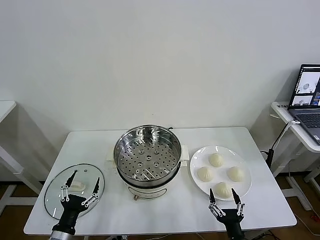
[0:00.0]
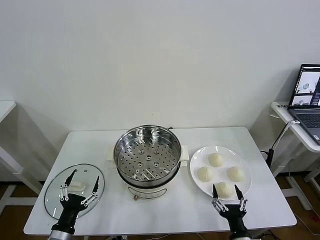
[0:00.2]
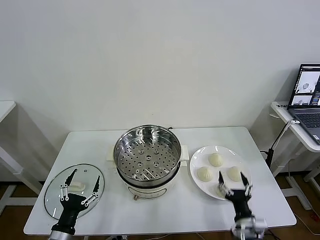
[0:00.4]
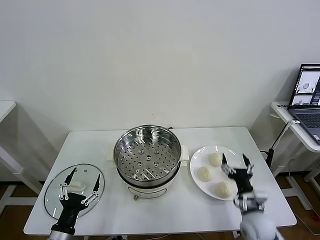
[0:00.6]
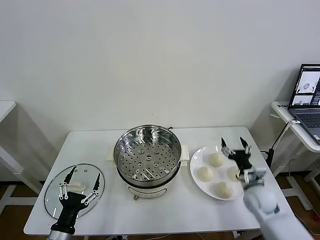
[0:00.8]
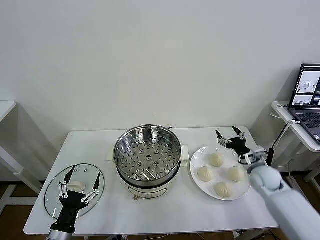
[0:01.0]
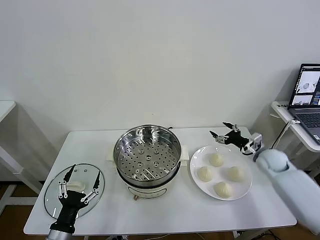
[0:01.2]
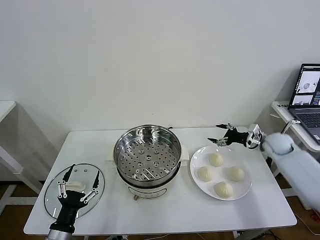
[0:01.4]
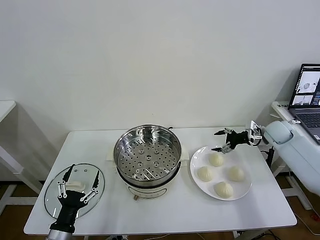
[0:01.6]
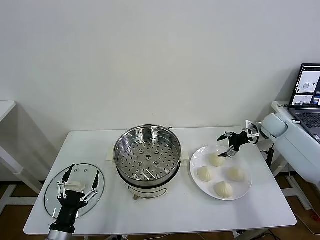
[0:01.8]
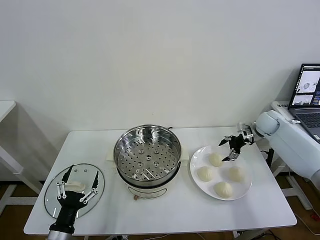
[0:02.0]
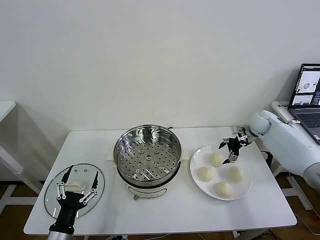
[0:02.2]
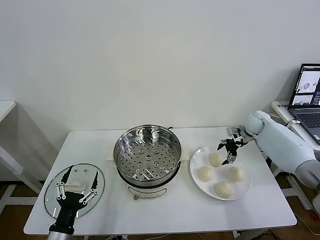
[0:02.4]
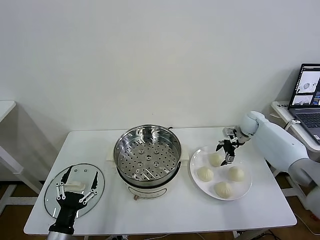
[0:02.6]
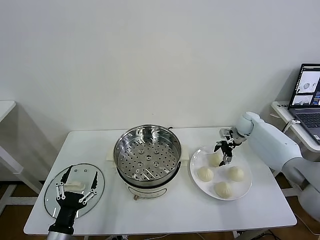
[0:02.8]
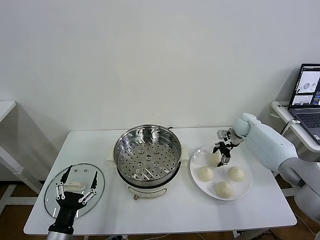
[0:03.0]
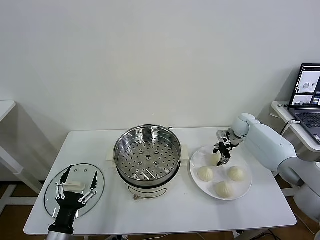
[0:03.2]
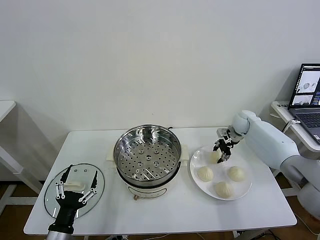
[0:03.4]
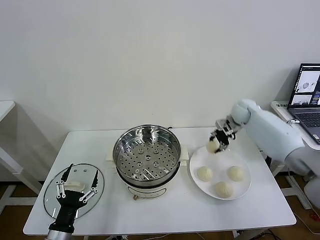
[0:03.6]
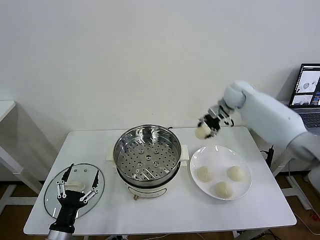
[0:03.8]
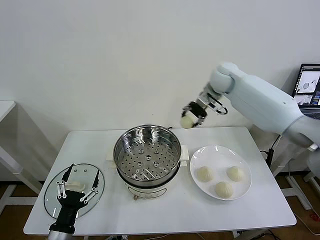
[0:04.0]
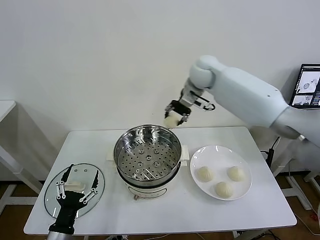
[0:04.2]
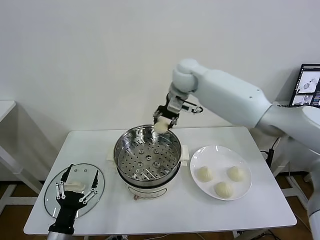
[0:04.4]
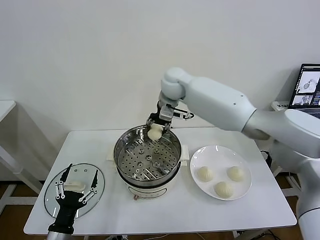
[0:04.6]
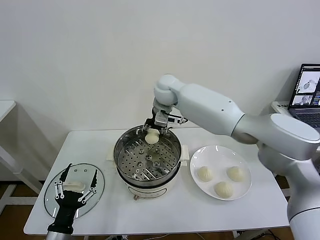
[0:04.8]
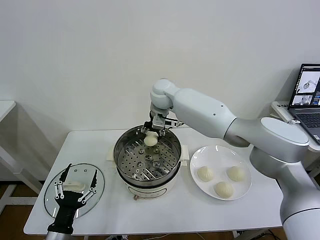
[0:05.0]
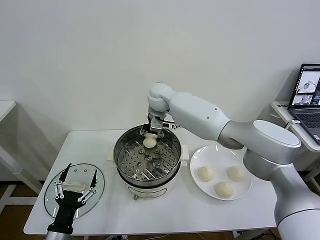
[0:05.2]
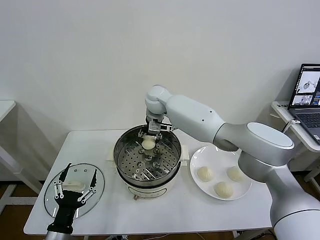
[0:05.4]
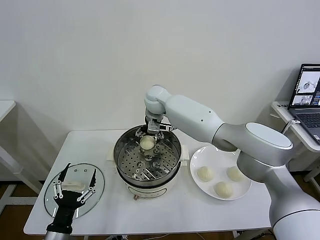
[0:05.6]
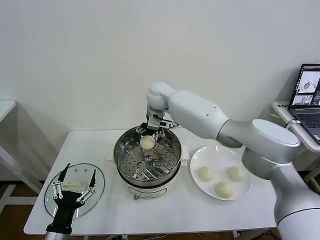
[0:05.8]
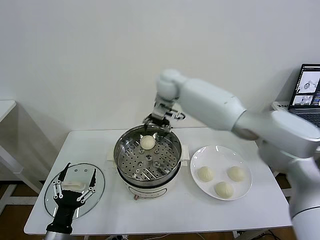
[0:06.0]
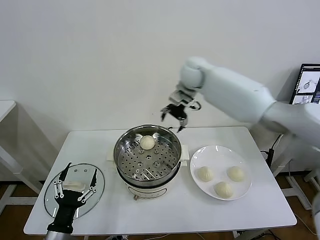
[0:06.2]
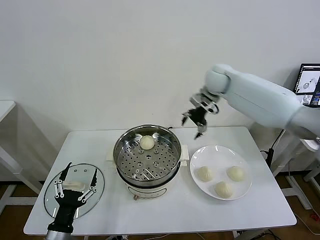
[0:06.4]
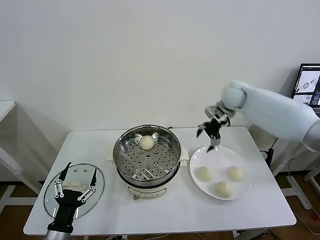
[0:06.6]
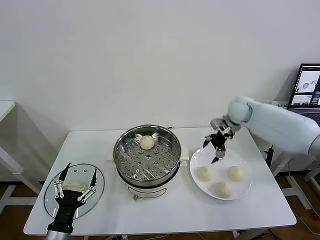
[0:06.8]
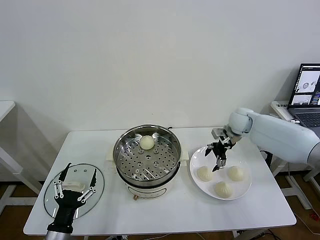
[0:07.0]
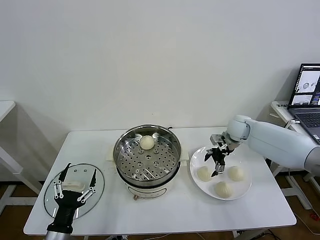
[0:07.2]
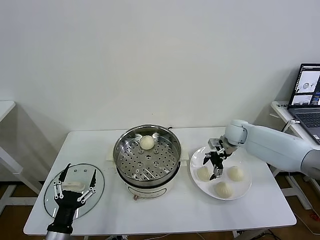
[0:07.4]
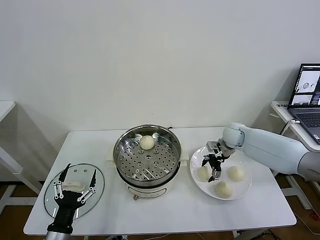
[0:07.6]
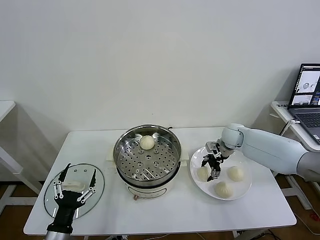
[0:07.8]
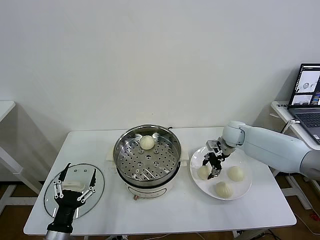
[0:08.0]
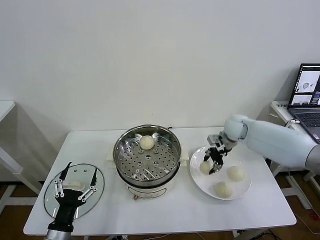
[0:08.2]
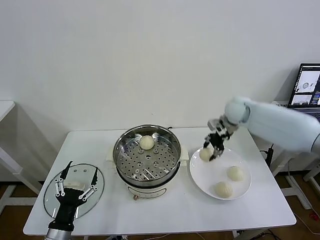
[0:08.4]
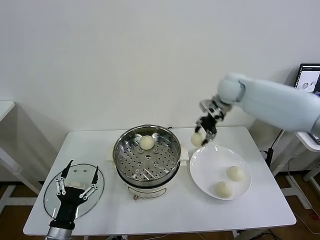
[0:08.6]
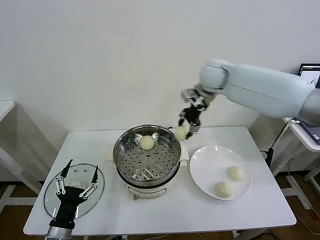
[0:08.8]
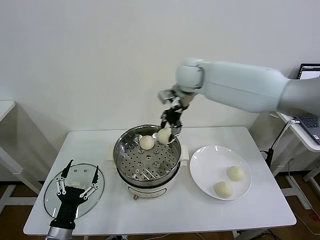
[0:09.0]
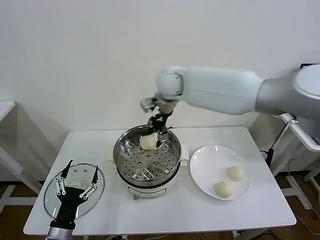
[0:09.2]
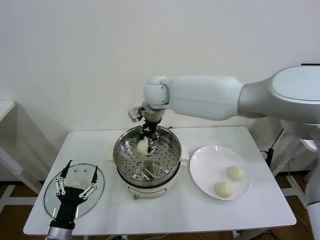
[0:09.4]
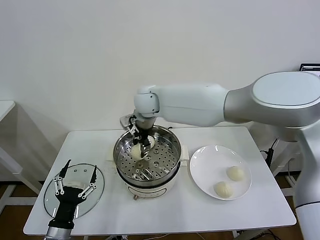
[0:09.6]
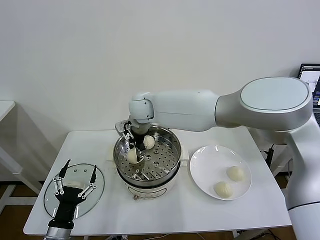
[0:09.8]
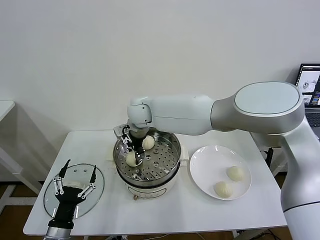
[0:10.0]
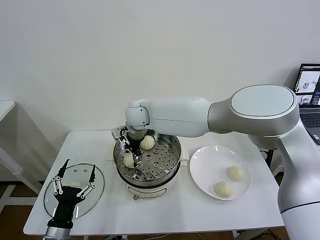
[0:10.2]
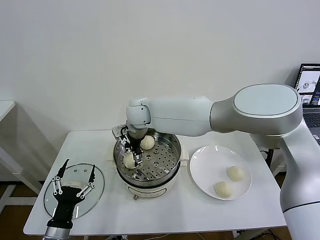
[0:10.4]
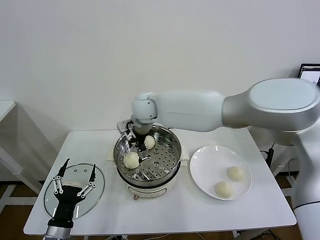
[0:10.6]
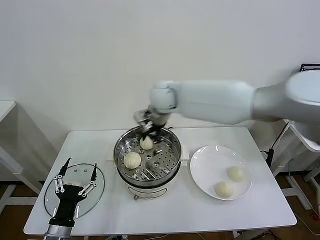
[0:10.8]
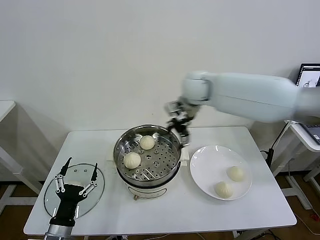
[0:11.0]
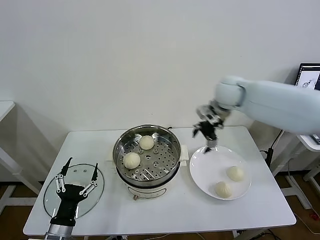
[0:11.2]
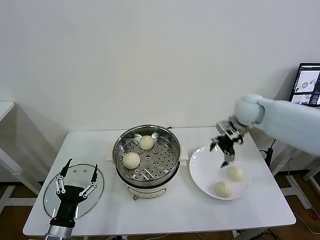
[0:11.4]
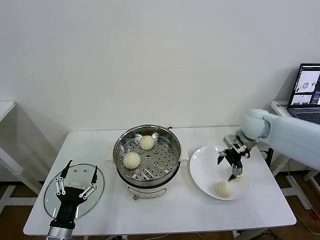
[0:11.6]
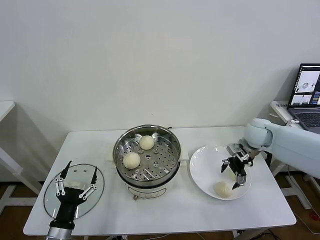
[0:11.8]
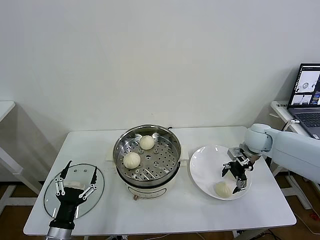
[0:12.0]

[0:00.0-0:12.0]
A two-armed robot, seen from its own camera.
Task of the whole recording: take steamed baozi put them in steamer then cover it.
Step, 0.0 to 3.0 s: Grasp the baozi in the plate with right gripper.
Step, 3.2 to 5.4 s: Place the baozi on the steamer with right gripper.
Step, 5.8 to 7.8 s: Grasp the baozi in the plate with right gripper.
Step, 8.0 to 10.4 s: Place the baozi on the steamer with right gripper.
1.6 to 3.0 s: The right gripper goes some 10 cm to the left and forward, and closes its fingers.
3.0 to 4.4 s: The right gripper travels to the left and upward by some 35 cm, and closes.
4.4 to 6.0 s: The right gripper goes downward and returns, some 10 cm each way, and opens its fingers.
6.0 to 7.6 s: The right gripper moves downward and to the right, some 30 cm.
7.6 to 9.0 s: The right gripper moves upward and to the left, approximately 35 cm, and closes.
9.0 to 10.4 s: The right gripper goes approximately 15 cm to the left and downward, and opens up.
10.4 to 12.0 s: The right gripper shifts approximately 40 cm to the right.

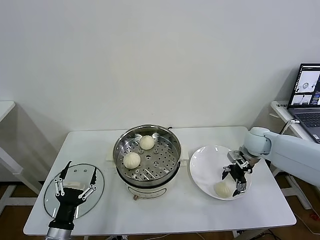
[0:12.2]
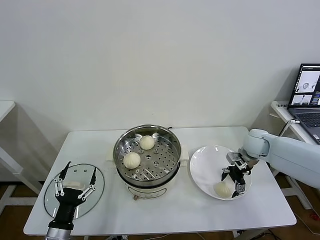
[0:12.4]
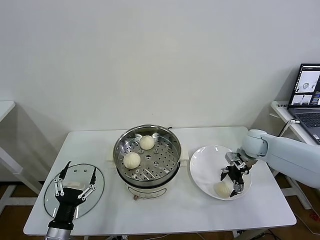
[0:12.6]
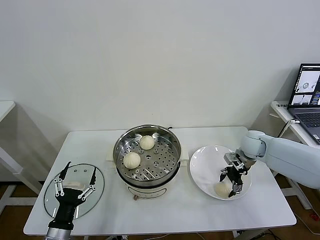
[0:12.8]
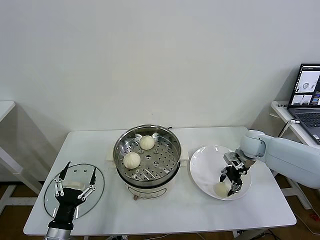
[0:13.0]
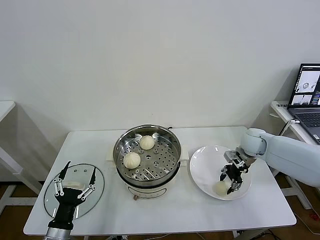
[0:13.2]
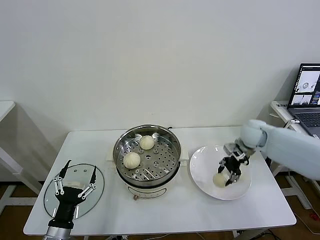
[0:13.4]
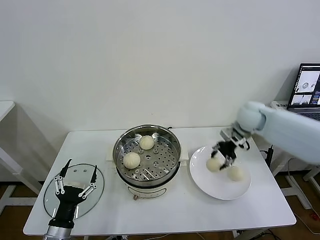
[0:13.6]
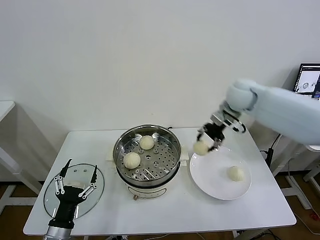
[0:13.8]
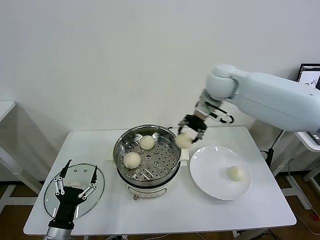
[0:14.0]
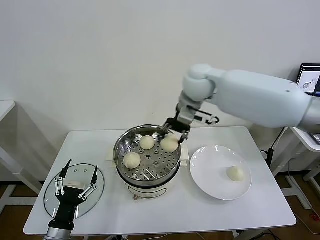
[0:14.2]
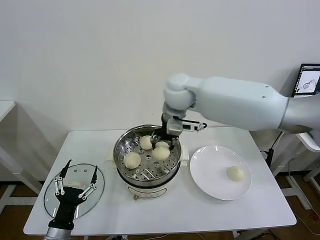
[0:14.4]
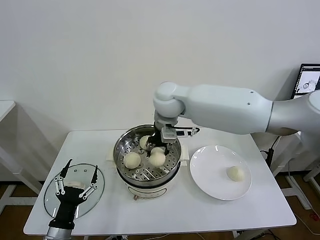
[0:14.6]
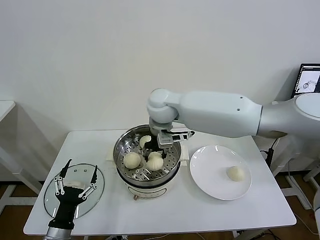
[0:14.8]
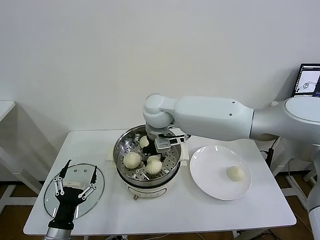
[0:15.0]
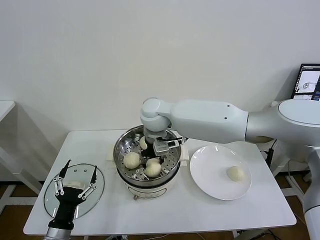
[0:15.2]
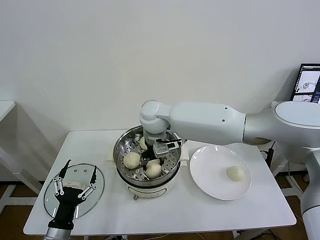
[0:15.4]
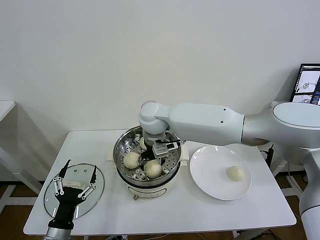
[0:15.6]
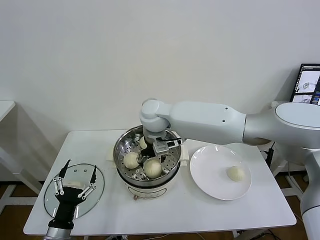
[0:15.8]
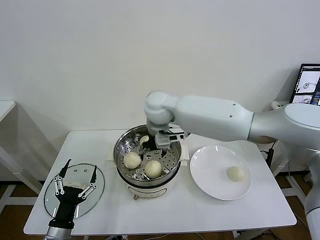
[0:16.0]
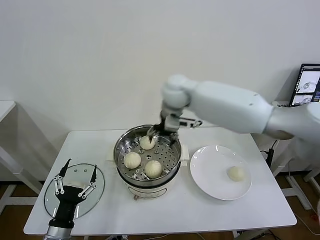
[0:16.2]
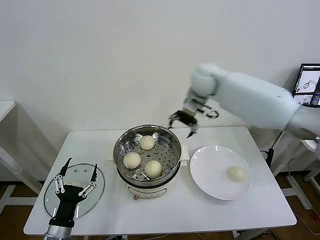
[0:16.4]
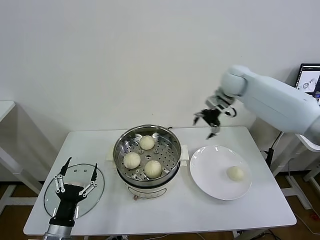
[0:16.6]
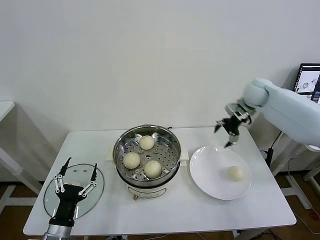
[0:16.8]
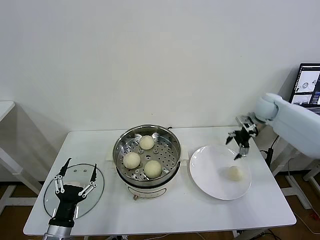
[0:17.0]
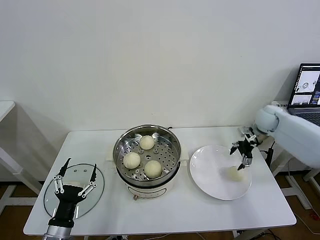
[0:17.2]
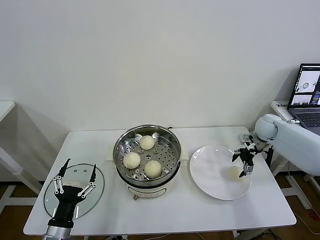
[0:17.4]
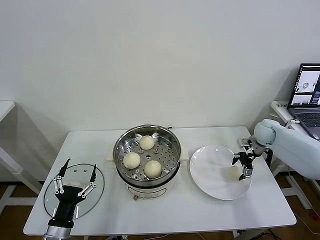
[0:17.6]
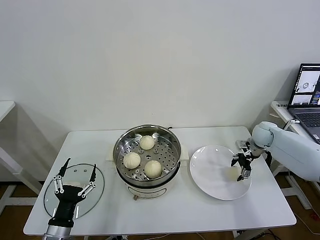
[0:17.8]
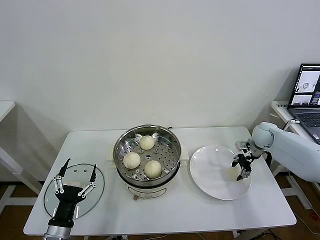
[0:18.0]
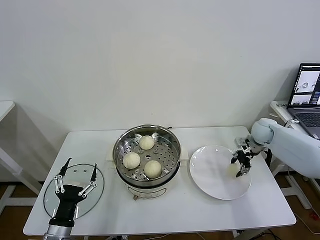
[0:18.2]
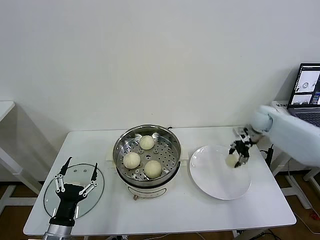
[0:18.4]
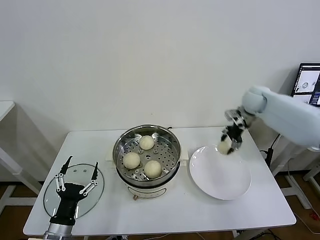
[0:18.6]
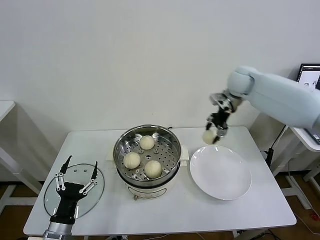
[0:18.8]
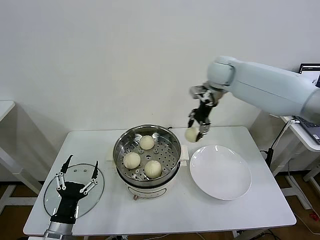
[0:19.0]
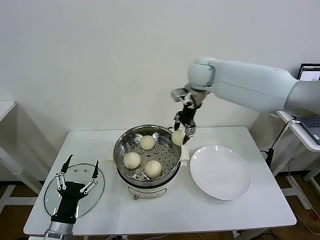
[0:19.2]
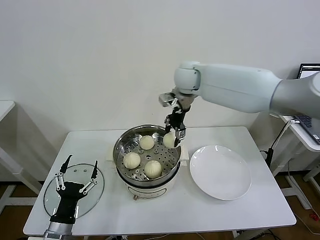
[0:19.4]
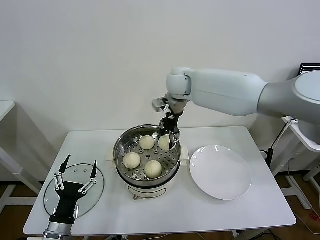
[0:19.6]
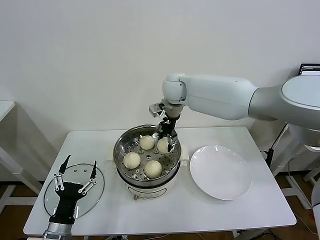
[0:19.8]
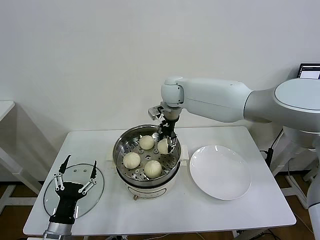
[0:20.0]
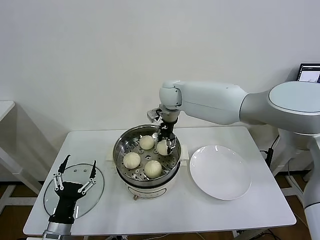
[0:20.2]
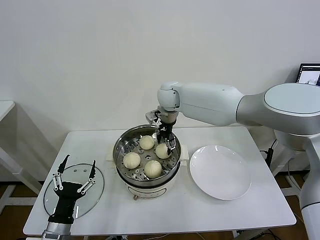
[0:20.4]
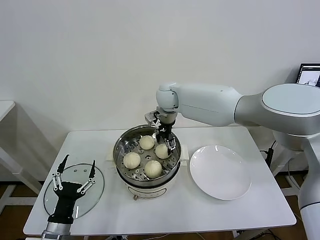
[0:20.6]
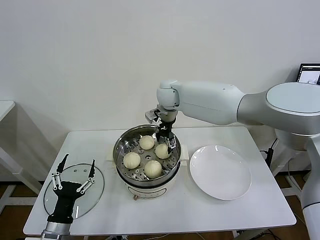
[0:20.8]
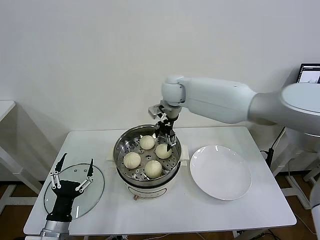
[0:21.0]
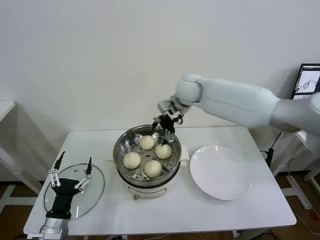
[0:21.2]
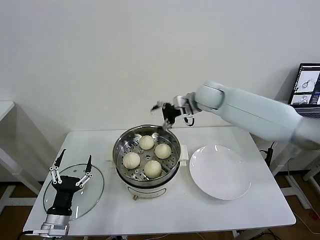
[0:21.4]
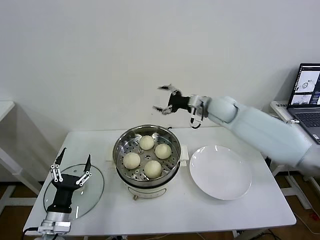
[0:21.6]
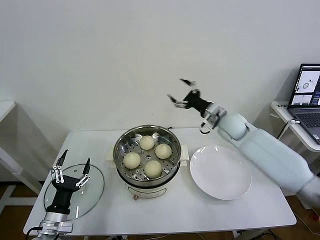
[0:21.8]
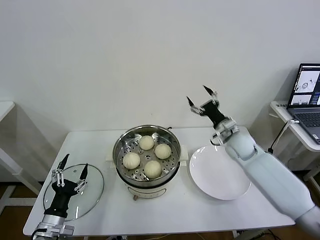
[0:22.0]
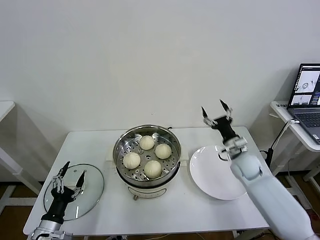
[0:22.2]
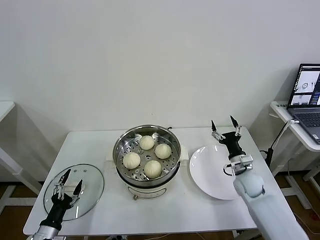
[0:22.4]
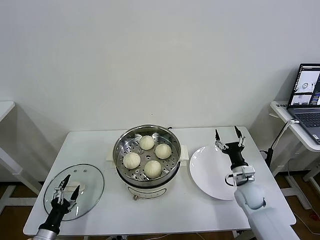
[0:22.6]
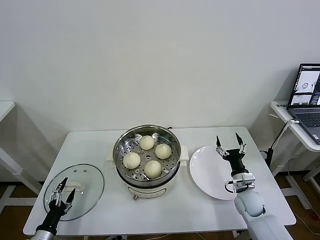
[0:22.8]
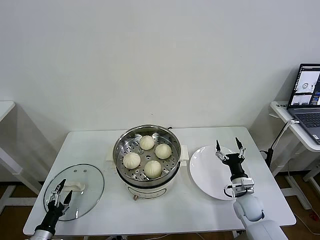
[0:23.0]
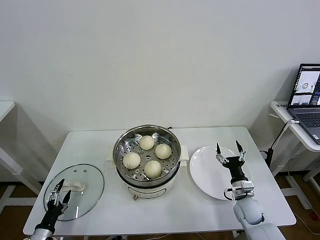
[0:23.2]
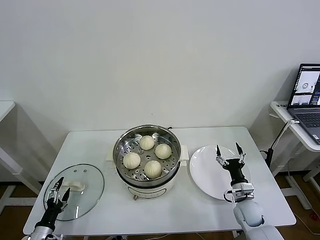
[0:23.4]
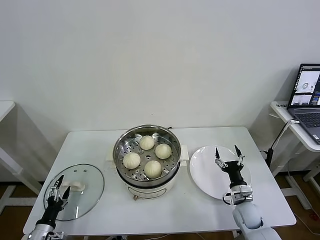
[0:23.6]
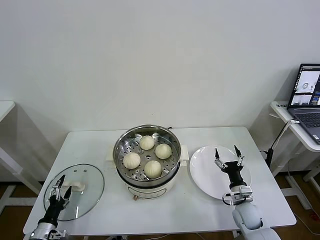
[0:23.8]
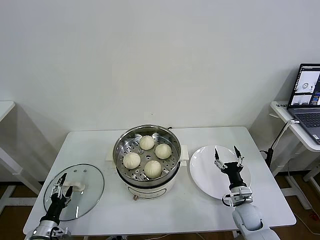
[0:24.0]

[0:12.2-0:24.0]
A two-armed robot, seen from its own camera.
Task of the whole recording: take steamed baozi put them in steamer then cover it.
Step, 13.2 to 15.6 s: Place the baozi on the steamer with right gripper.
Step, 15.8 to 18.0 s: Grasp the baozi in the plate with right gripper.
Step, 18.2 to 20.6 s: Place the baozi on the steamer with right gripper.
12.2 to 13.6 s: The right gripper heads upward and to the left, covering roughly 15 cm, and closes its fingers.
13.6 to 15.2 s: The right gripper goes about 30 cm to the left.
15.2 to 16.6 s: The right gripper goes some 30 cm to the right and forward, and opens.
16.6 to 18.2 s: The right gripper shifts some 25 cm downward and to the right, and closes up.
18.2 to 19.6 s: The right gripper goes some 40 cm to the left and upward.
19.6 to 21.0 s: The right gripper opens its fingers.
21.0 to 22.6 s: The left gripper heads to the left and downward, covering some 10 cm, while the right gripper goes some 50 cm downward, to the right and backward.
22.6 to 24.0 s: The left gripper ends up some 5 cm from where it was. Meanwhile the right gripper is displaced downward and backward by some 10 cm.
